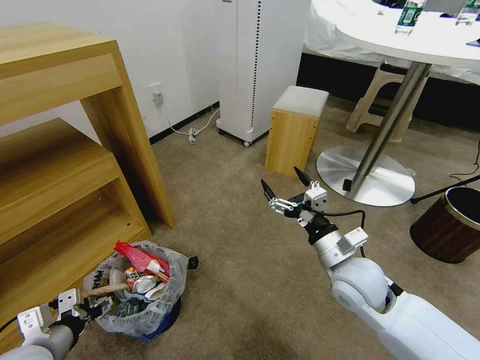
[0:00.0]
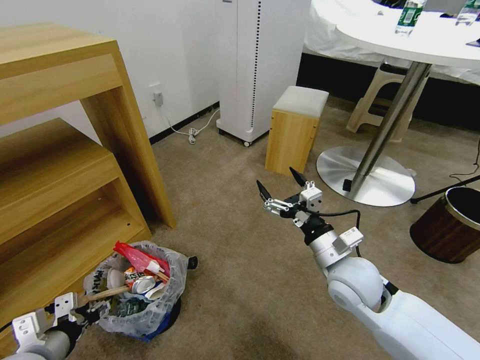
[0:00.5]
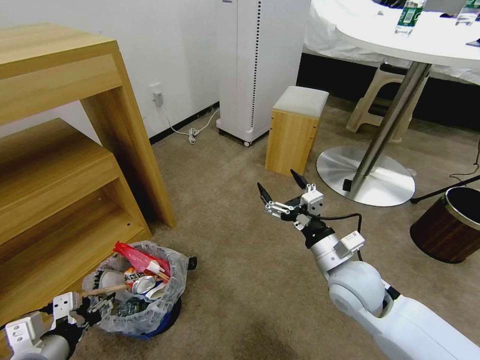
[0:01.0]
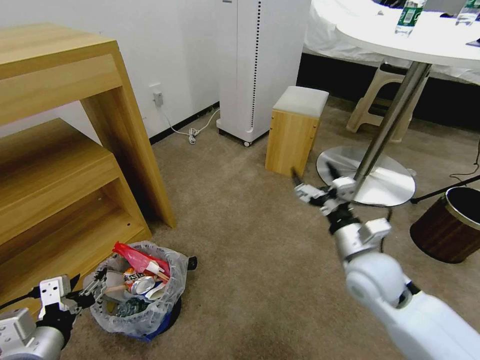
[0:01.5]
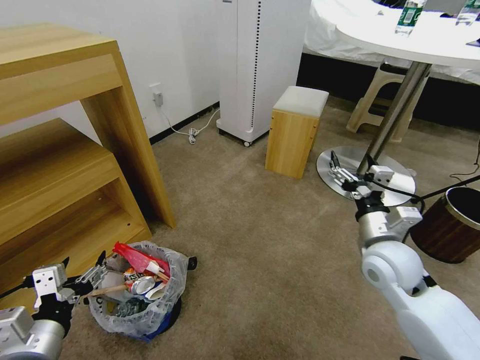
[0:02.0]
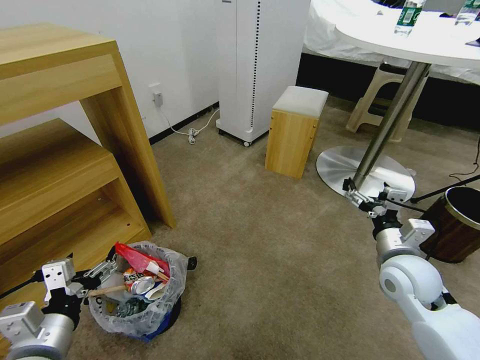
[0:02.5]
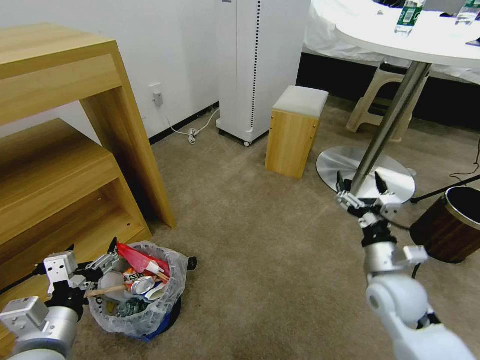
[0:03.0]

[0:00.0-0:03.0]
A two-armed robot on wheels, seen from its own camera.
Task of the whole recording: Pick up the trash bin and place the garbage on the floor into it.
0:00.0 to 0:01.5: The left gripper heads upward, covering about 5 cm.
0:01.5 to 0:03.0: The right gripper heads to the right, covering some 5 cm.
